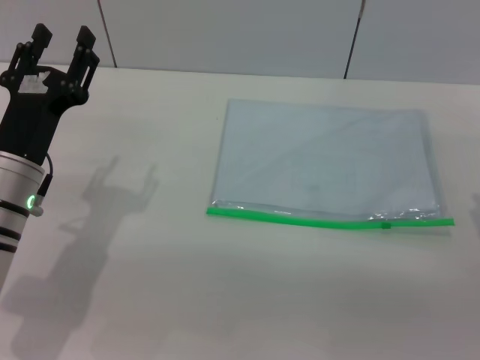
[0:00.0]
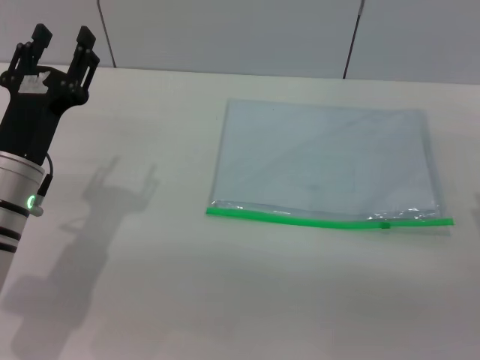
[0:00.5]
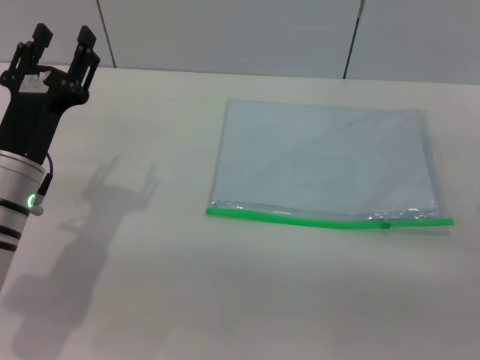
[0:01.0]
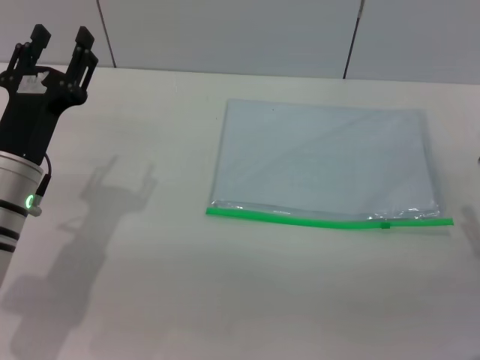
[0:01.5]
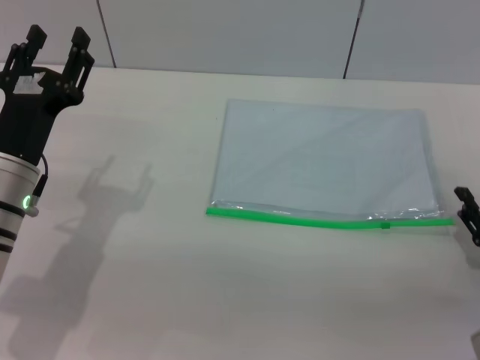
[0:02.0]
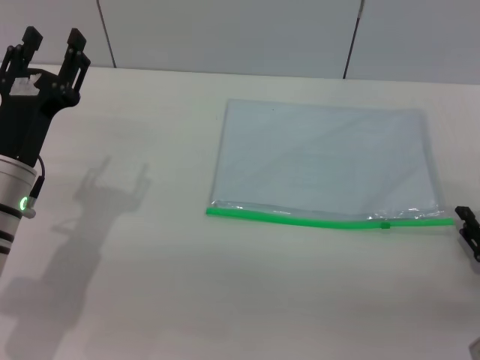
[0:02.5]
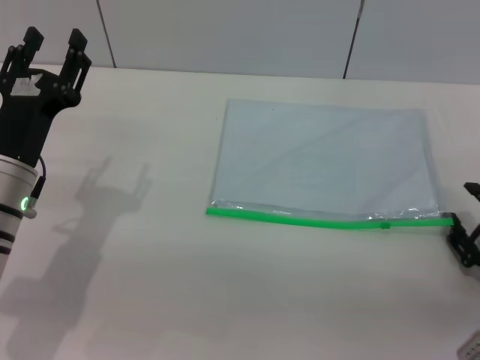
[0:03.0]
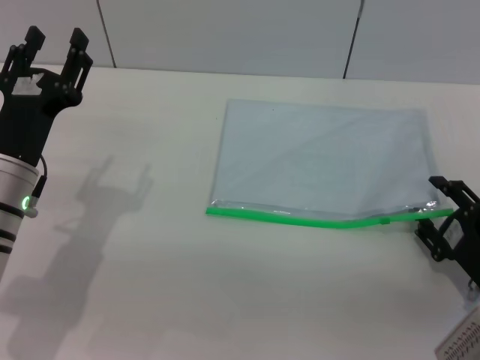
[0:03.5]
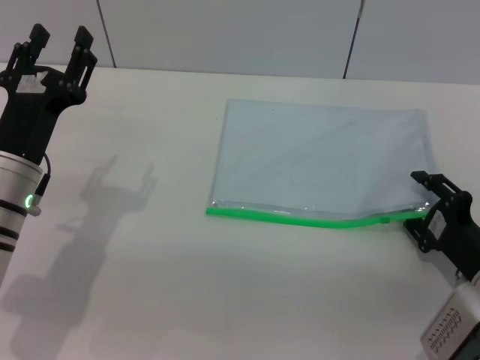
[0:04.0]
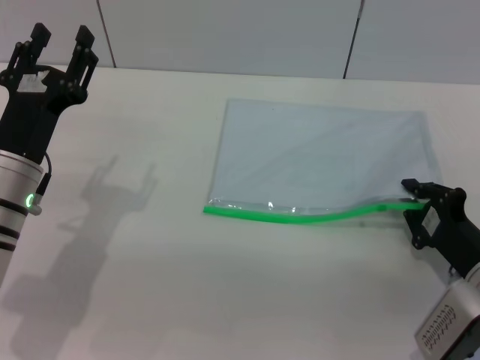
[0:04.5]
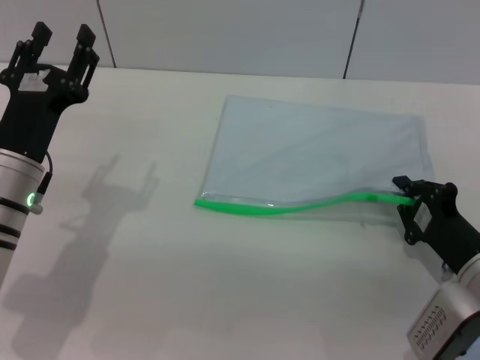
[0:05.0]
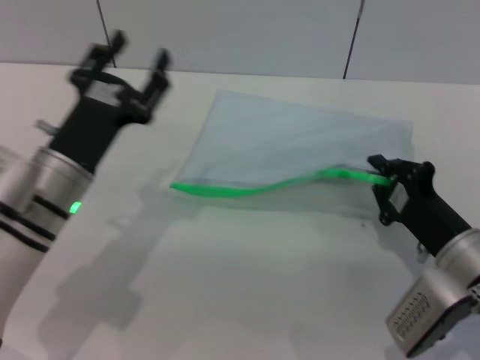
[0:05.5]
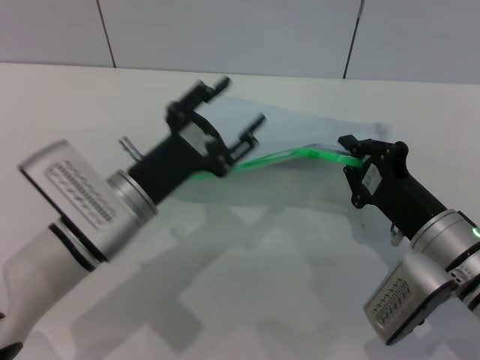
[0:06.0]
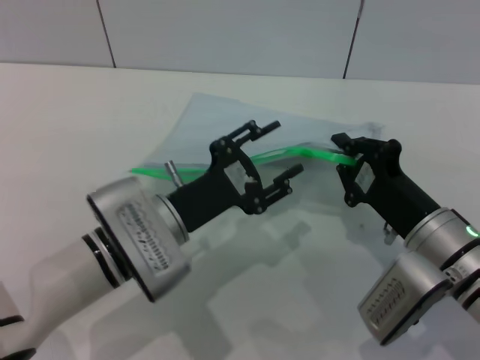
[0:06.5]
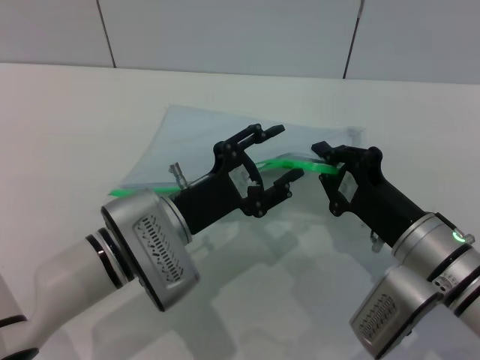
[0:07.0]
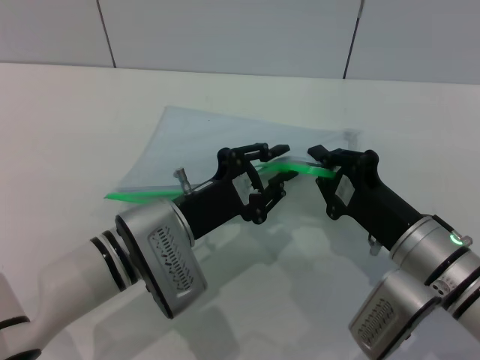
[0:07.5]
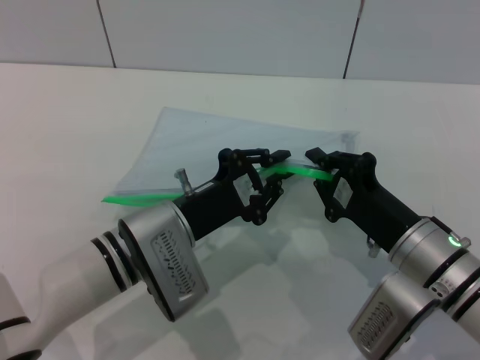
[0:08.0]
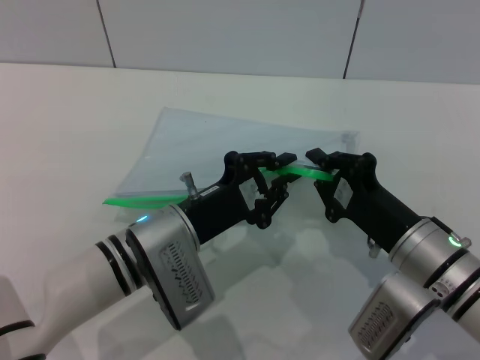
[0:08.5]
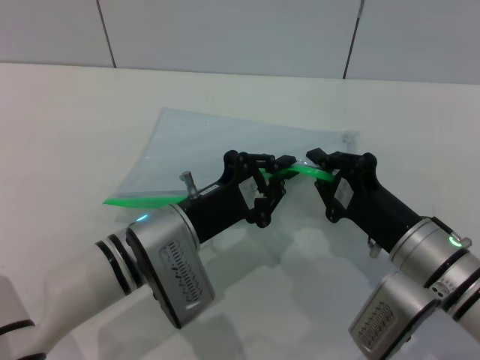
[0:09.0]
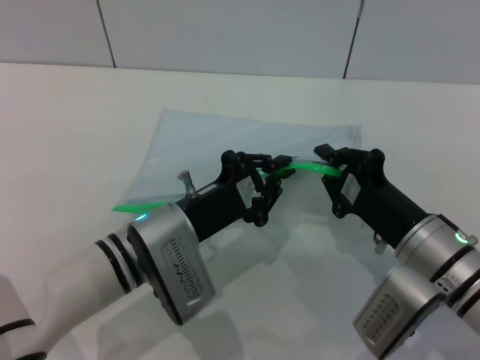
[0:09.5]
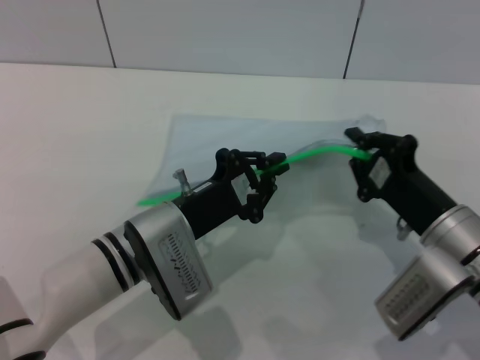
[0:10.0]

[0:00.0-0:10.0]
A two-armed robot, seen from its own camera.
Step, 0.0 to 5.5 s: Pick up the transparent plastic bag with the right gripper.
0.0 to 2.0 s: The right gripper is displaced downward by roughly 5 cm.
2.0 to 4.0 s: The grippers make only small movements.
4.0 to 6.0 s: The right gripper shifts roughly 5 cm to the left, and closes up. Meanwhile the left gripper goes roughly 10 cm to the right.
6.0 to 8.0 s: The left gripper closes up.
8.0 to 10.0 s: The grippers move only a little.

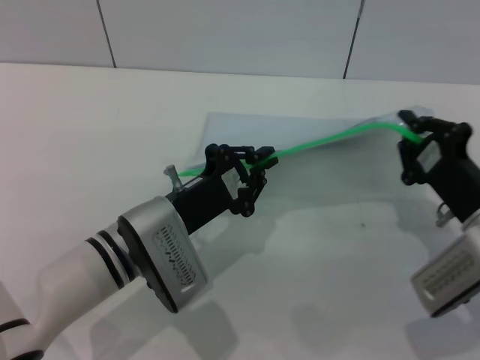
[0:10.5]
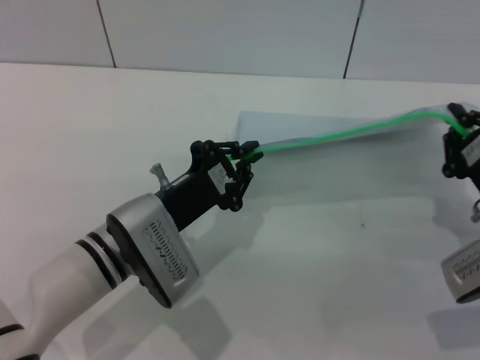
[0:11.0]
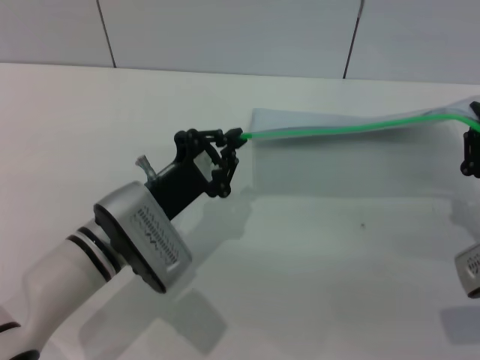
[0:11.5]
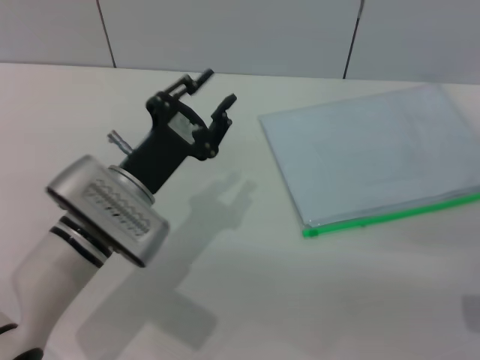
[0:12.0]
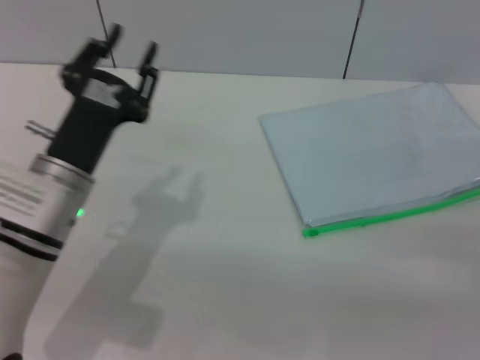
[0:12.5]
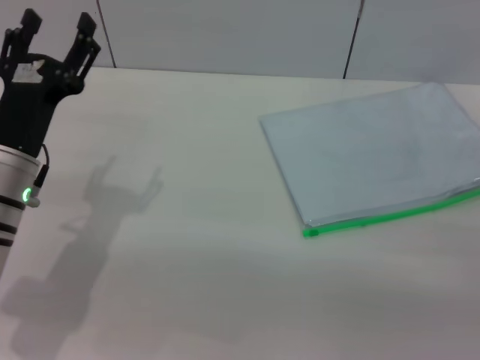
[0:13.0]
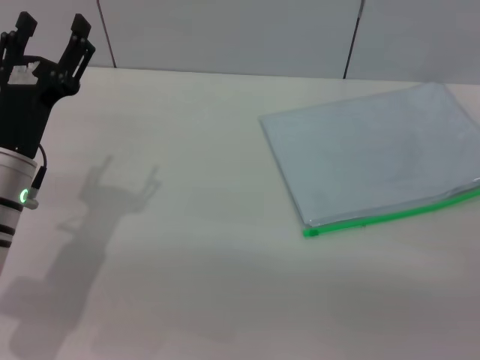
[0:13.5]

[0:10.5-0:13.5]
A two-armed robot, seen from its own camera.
10.5 to 12.0 s: The right gripper travels to the right by roughly 5 cm.
12.0 to 13.5 s: The right gripper opens. Meanwhile the left gripper goes some 10 cm to the left, and opens up.

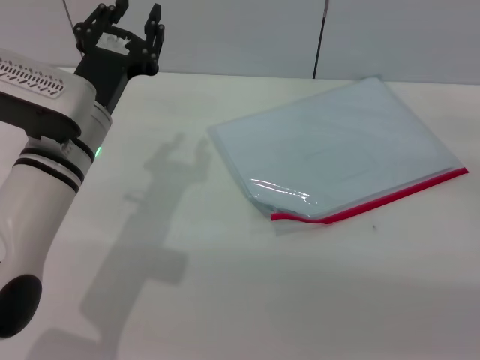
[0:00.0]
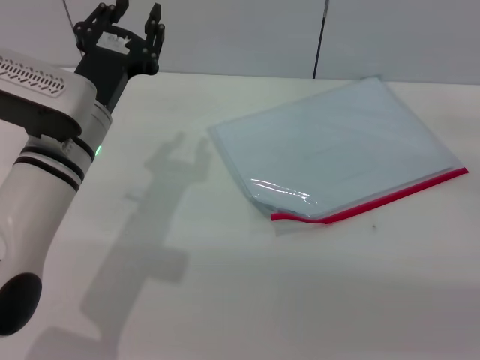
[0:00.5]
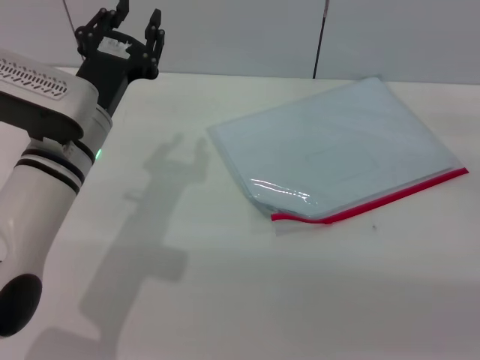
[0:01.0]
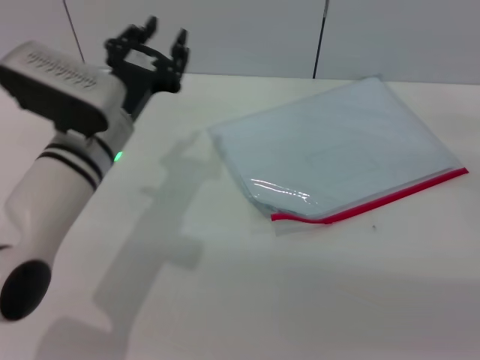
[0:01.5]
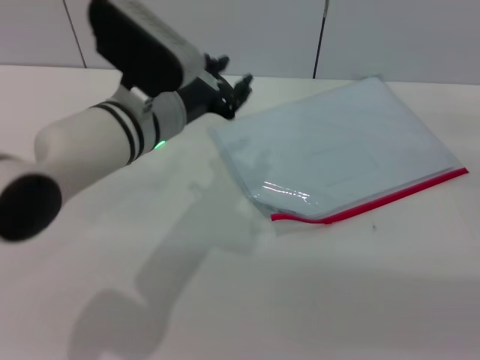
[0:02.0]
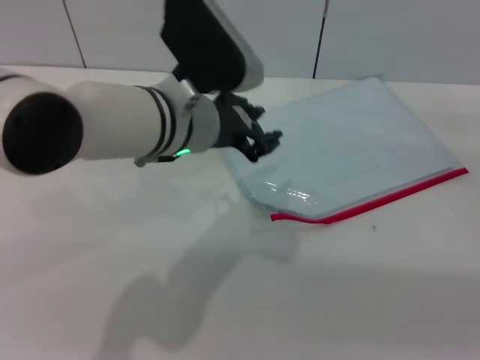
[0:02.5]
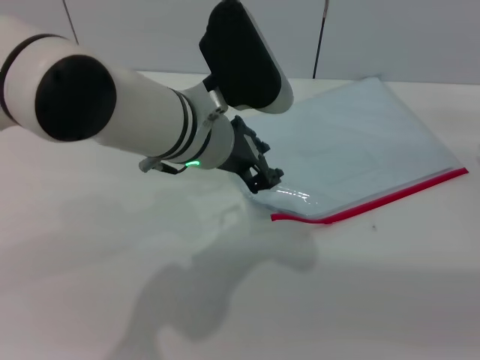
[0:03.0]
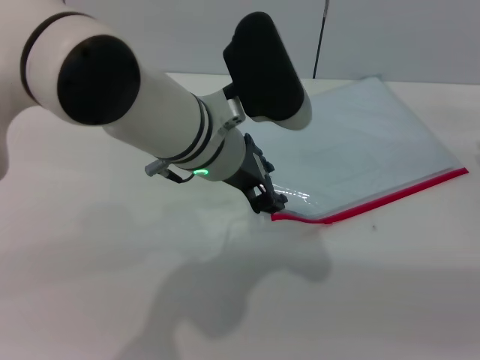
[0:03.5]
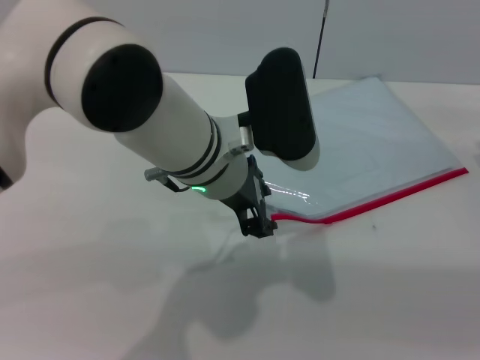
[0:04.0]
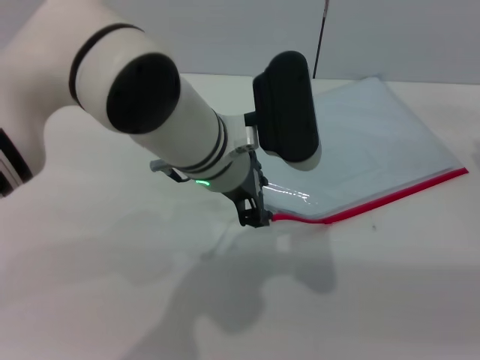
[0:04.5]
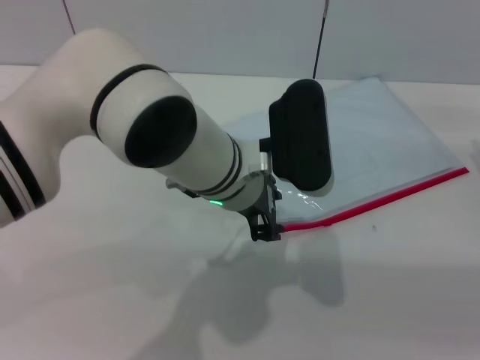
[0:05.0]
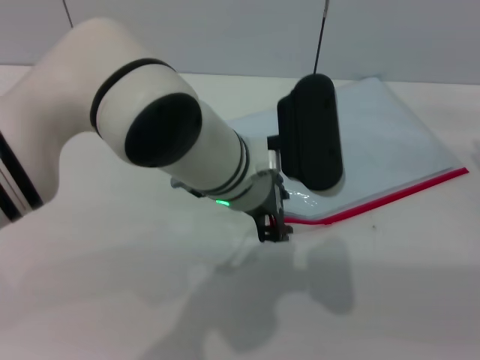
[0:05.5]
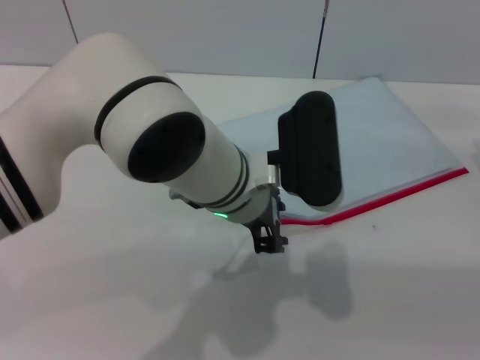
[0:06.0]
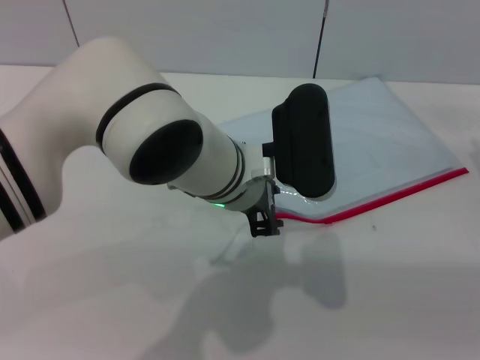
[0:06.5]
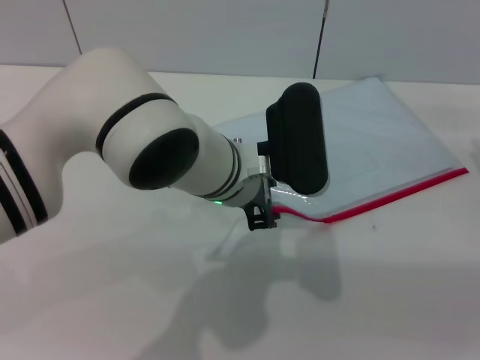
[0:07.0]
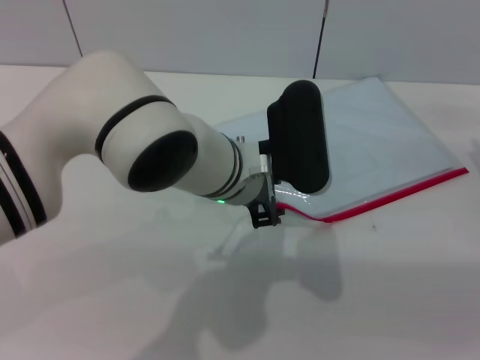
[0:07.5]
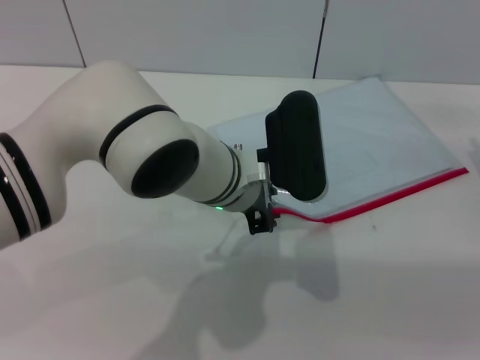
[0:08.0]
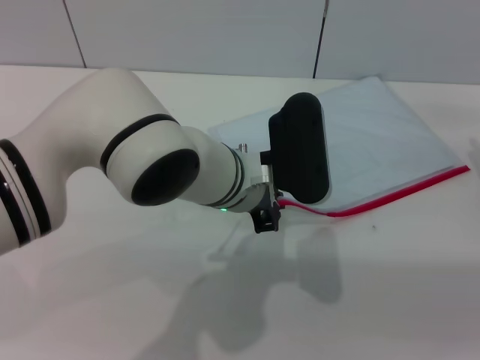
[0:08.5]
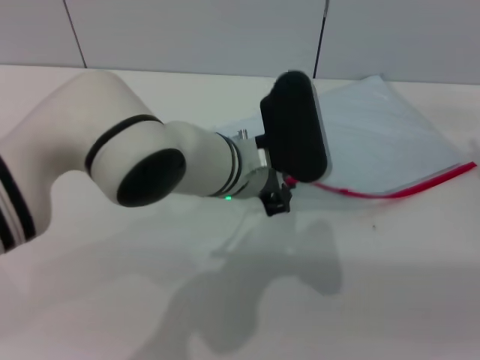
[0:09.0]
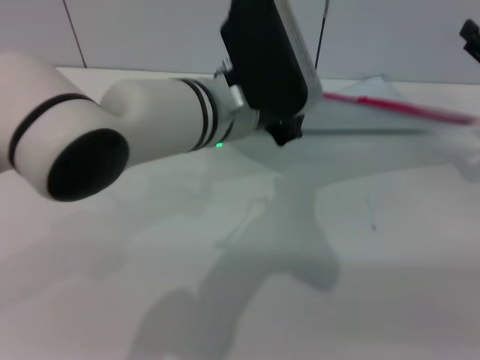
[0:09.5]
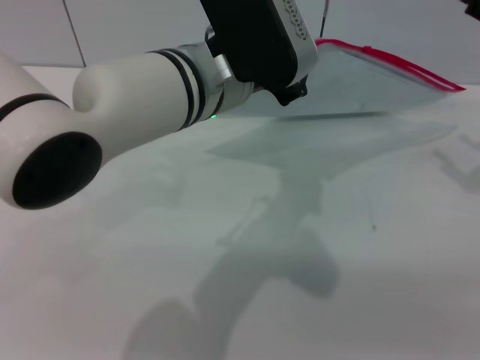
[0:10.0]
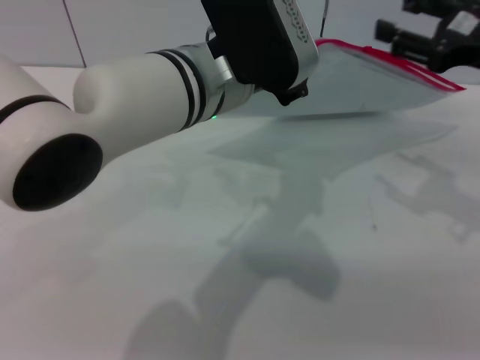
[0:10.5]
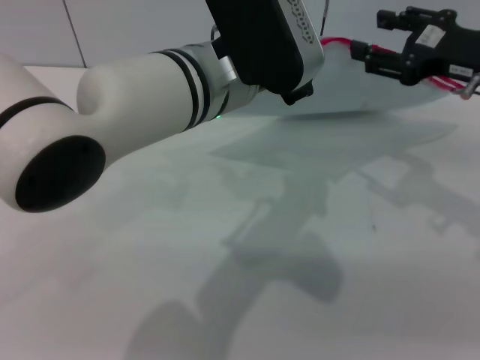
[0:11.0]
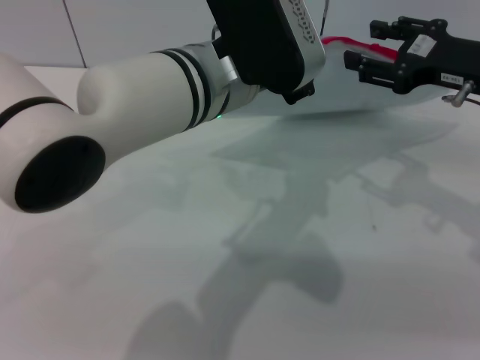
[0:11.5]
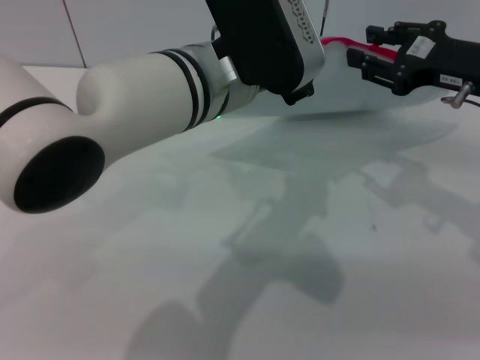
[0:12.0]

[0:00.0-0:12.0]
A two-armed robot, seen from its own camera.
Step, 0.0 to 8.5 s: Pick up the transparent plastic bag with the left gripper.
0.0 to 2.0 s: The left gripper moves to the right, about 5 cm.
2.0 to 4.0 s: The left gripper shifts about 5 cm to the right.
6.0 to 8.0 s: There are only small adjustments of the grippers.
8.0 to 10.0 s: The grippers both shift upward by about 10 cm. The left gripper closes up.
10.0 to 12.0 s: The right gripper heads to the left, covering roughly 10 cm.

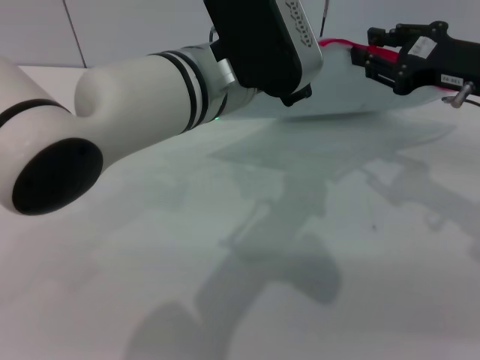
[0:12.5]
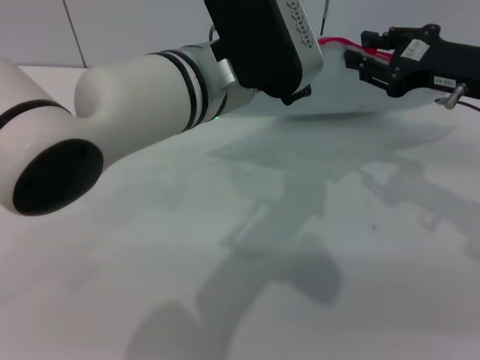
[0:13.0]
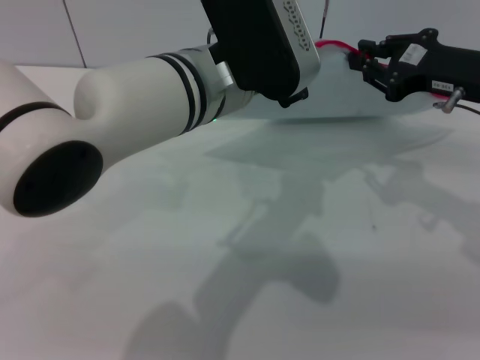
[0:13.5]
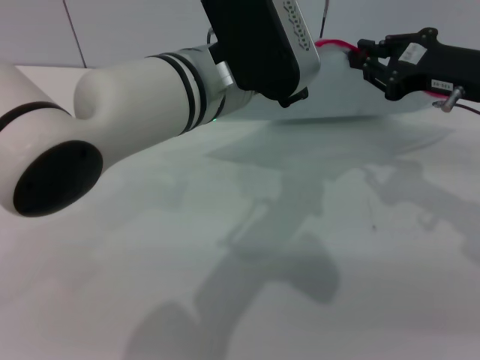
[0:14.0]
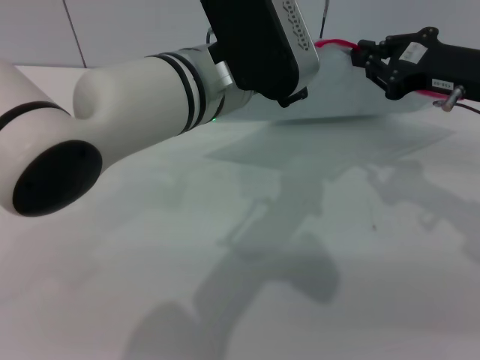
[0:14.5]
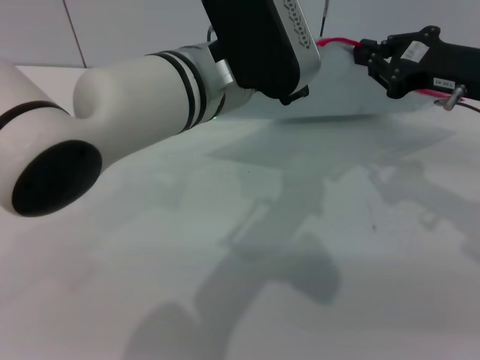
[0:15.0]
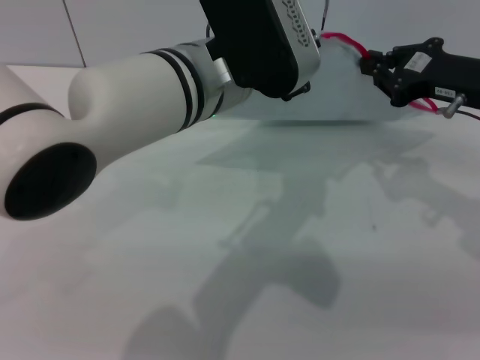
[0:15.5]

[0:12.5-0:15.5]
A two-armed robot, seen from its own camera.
12.5 to 14.0 s: The right gripper closes its fingers.
14.0 to 15.5 s: Both grippers stay about where they are.
